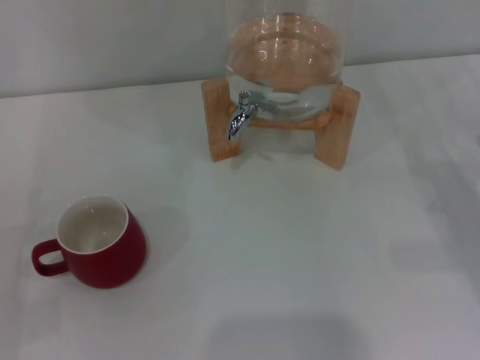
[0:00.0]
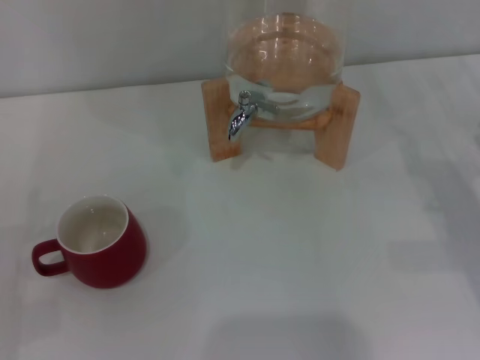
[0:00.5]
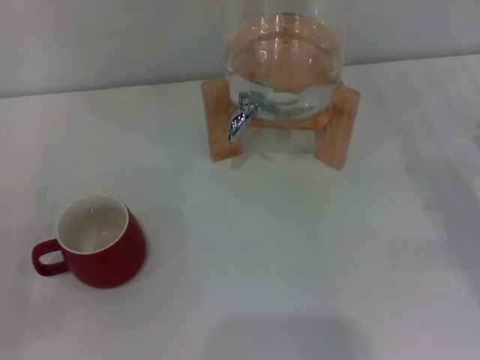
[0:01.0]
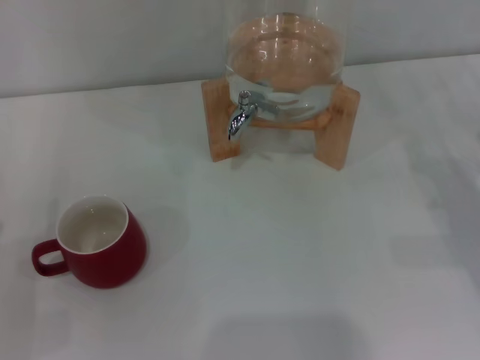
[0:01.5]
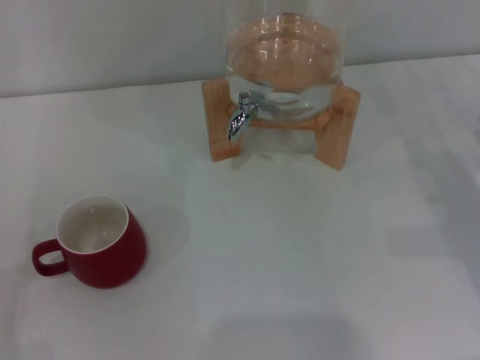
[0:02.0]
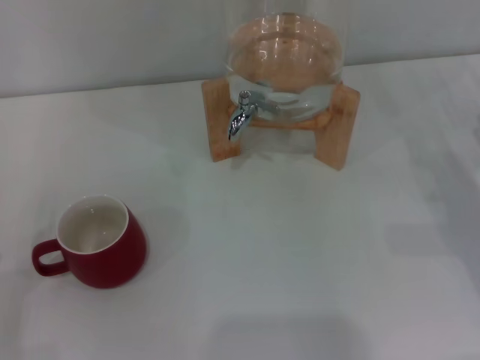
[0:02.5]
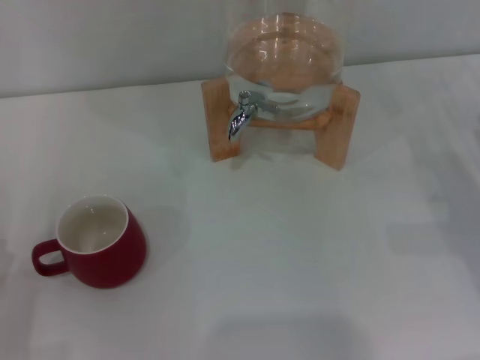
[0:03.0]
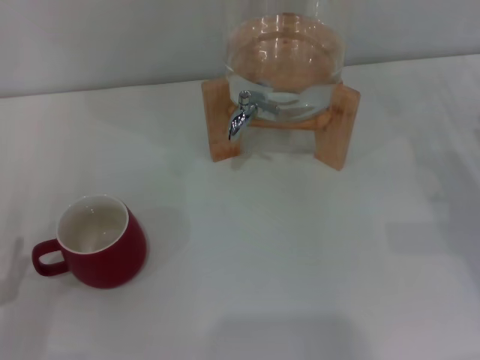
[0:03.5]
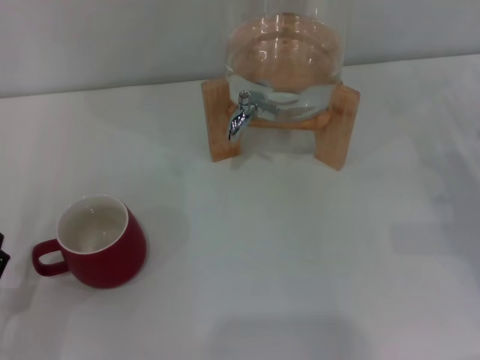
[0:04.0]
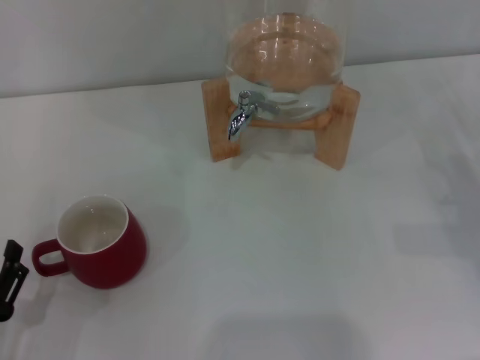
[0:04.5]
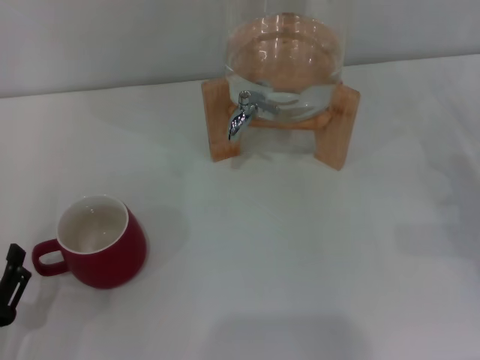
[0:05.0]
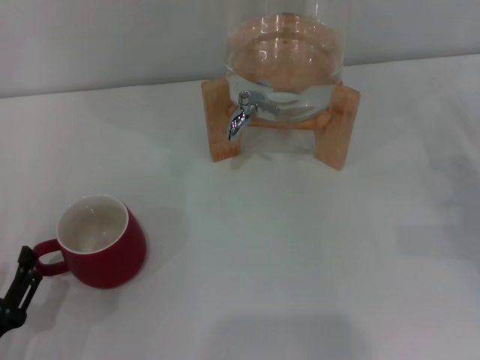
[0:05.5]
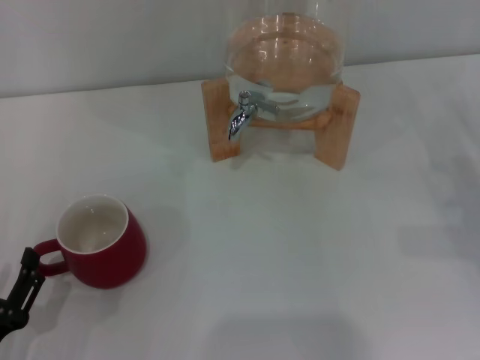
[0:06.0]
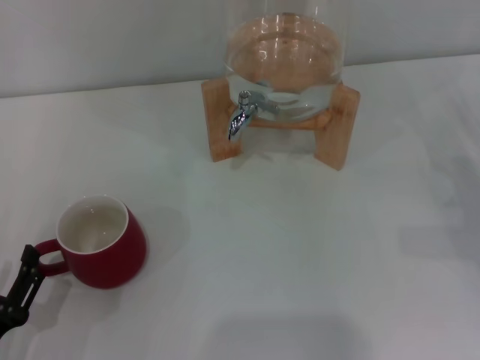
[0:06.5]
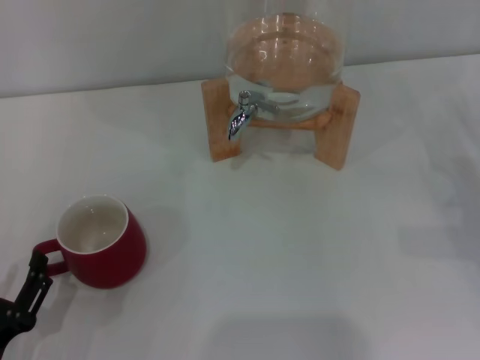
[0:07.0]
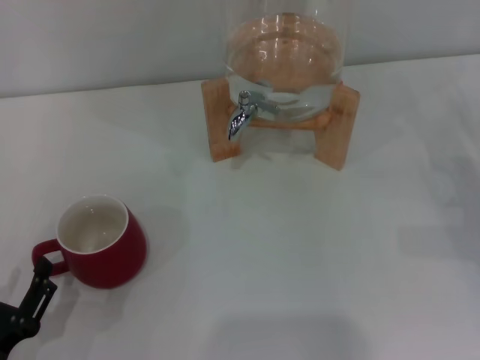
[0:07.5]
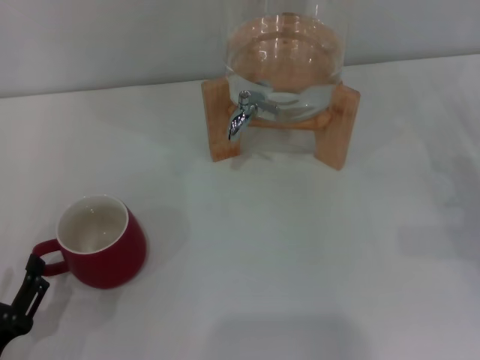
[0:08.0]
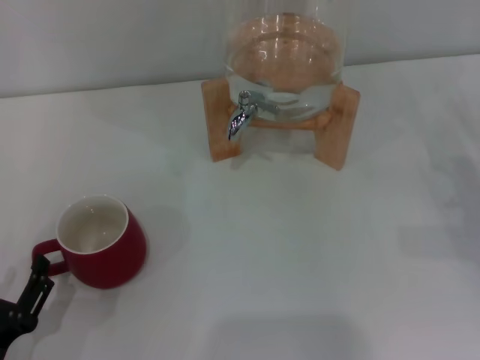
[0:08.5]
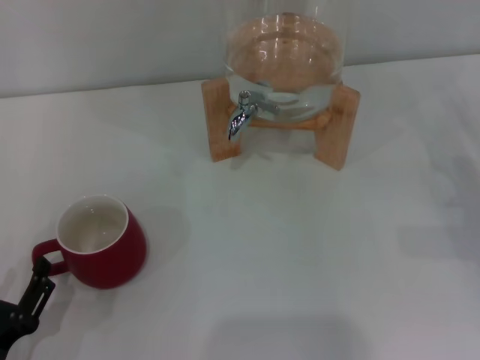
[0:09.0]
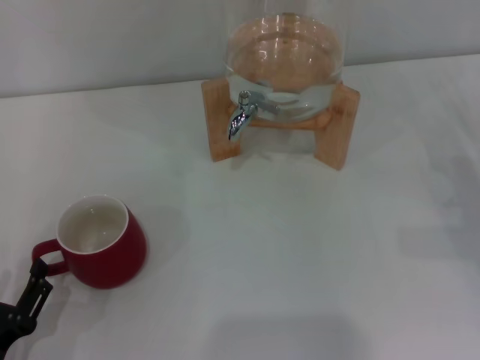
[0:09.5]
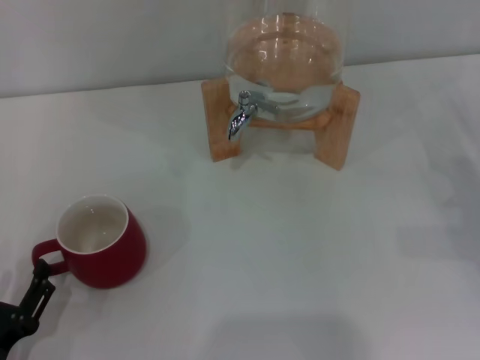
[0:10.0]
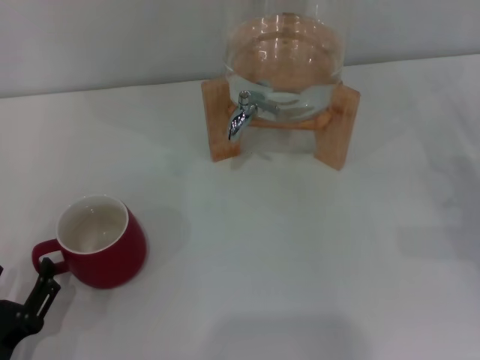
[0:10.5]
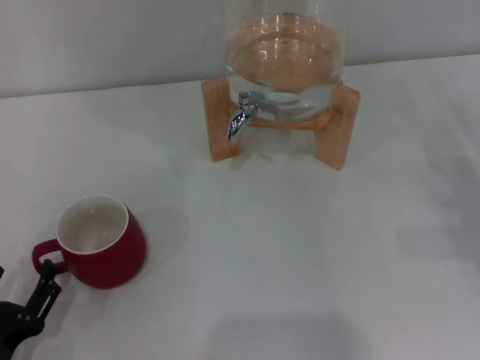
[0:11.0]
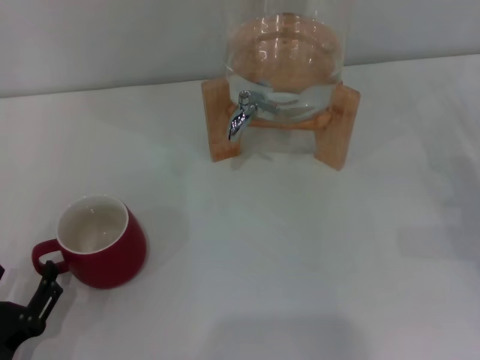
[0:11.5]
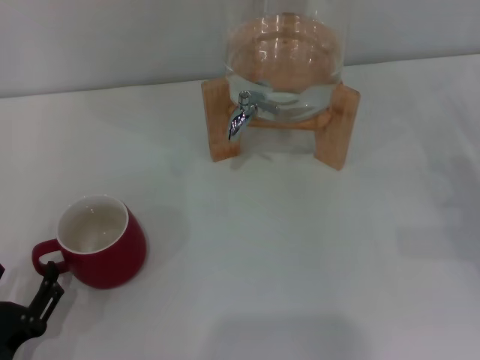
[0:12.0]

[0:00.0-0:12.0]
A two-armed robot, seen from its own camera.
Task of the whole recording: the left gripper pick up the red cup and place it horizontally under the faucet, the right gripper turn on the faucet to fill the cup, and then turn off the faucet.
0:04.0 to 0:06.0: There are only small adjustments of the grippers.
0:06.0 to 0:08.0: The two grippers keep their place.
0:08.0 to 0:10.0: Neither gripper changes place.

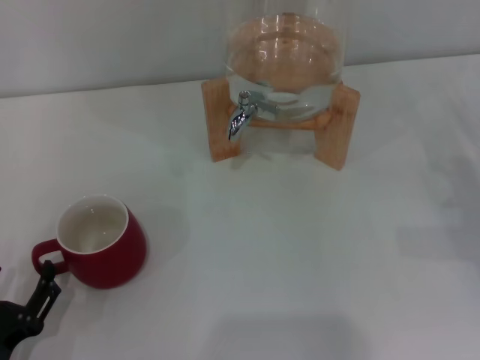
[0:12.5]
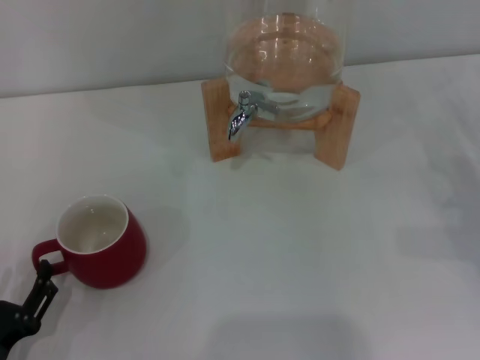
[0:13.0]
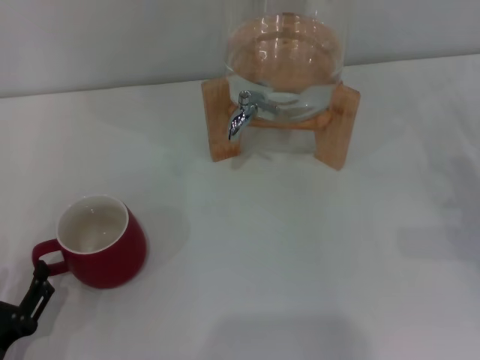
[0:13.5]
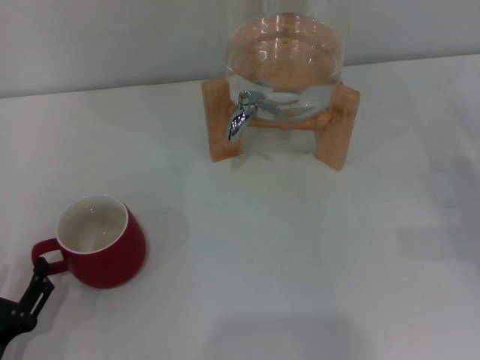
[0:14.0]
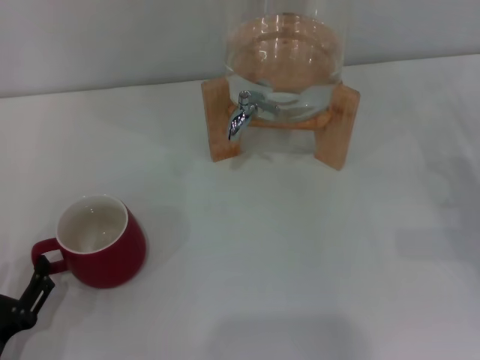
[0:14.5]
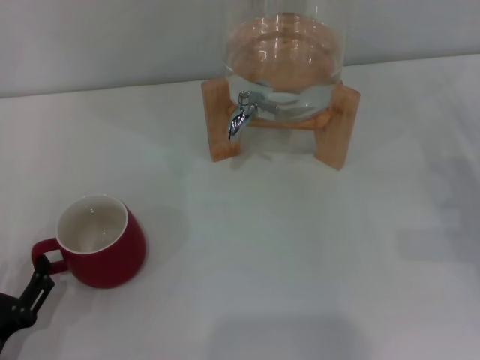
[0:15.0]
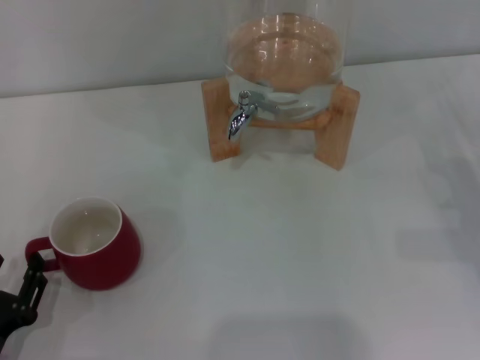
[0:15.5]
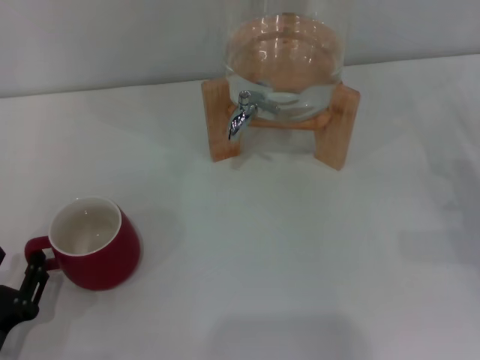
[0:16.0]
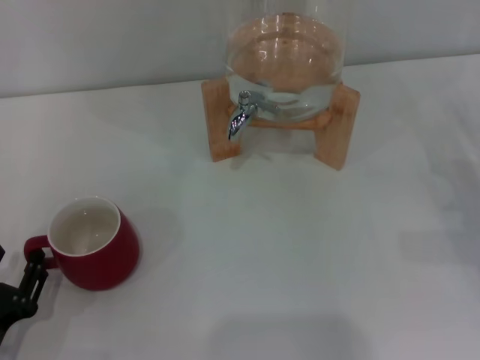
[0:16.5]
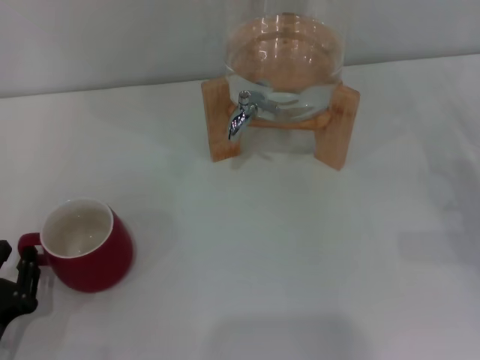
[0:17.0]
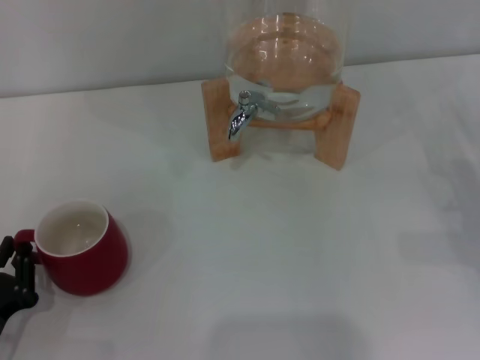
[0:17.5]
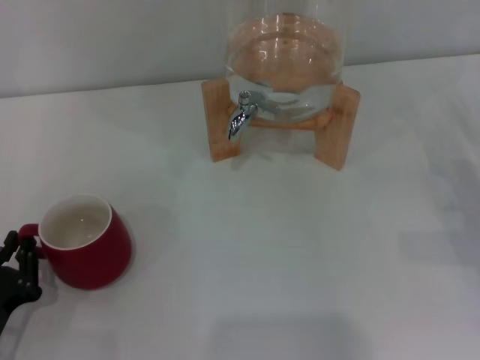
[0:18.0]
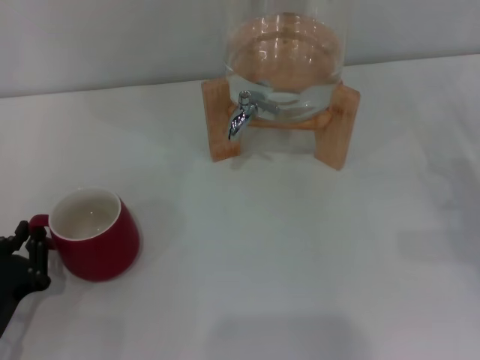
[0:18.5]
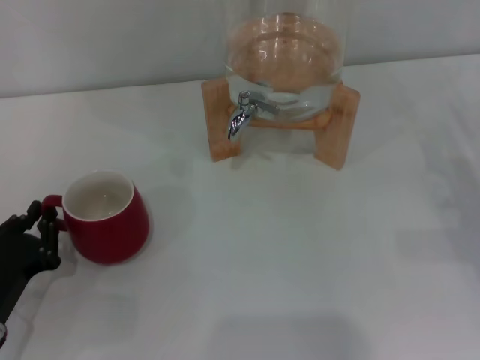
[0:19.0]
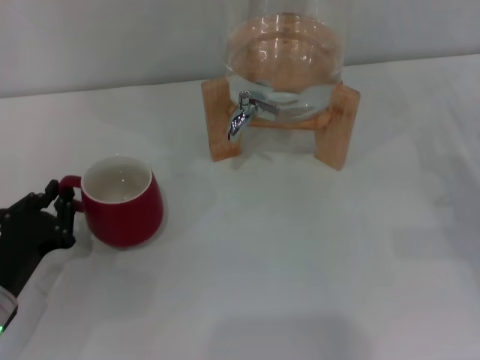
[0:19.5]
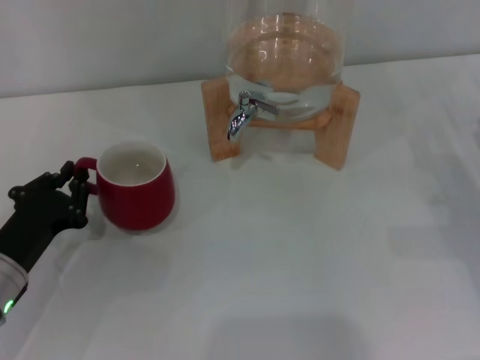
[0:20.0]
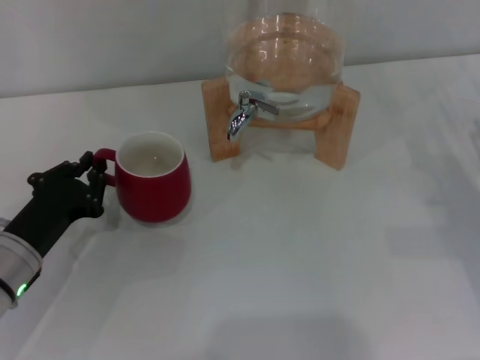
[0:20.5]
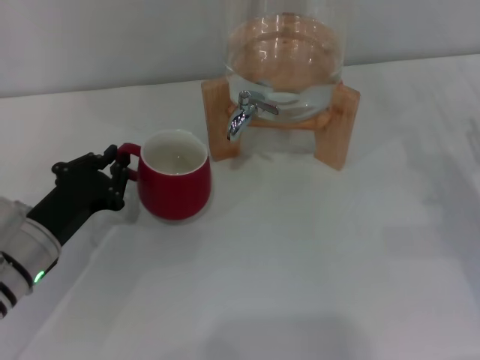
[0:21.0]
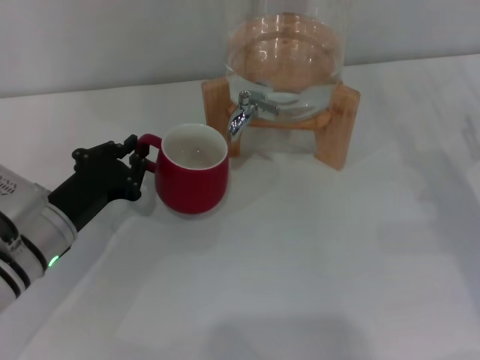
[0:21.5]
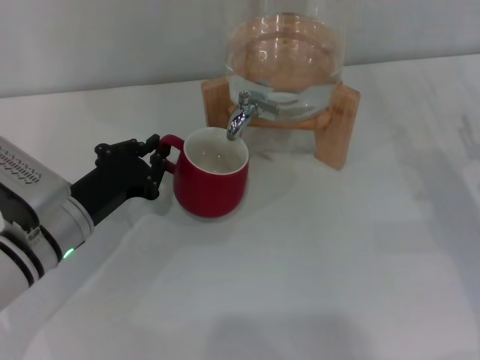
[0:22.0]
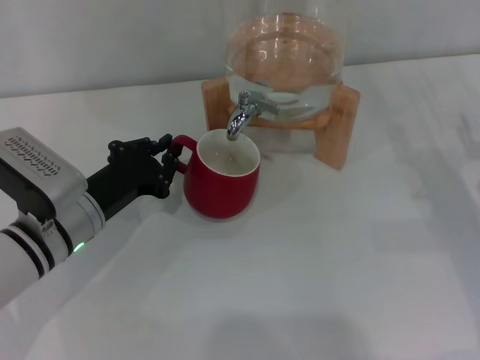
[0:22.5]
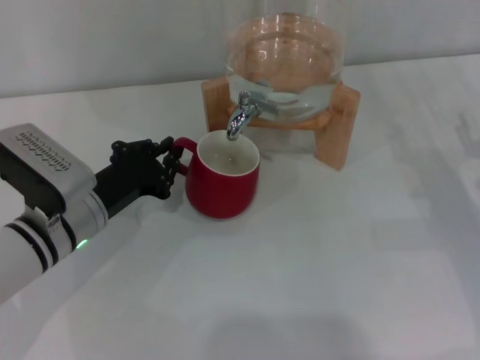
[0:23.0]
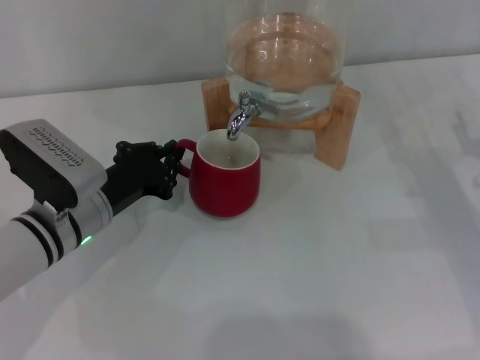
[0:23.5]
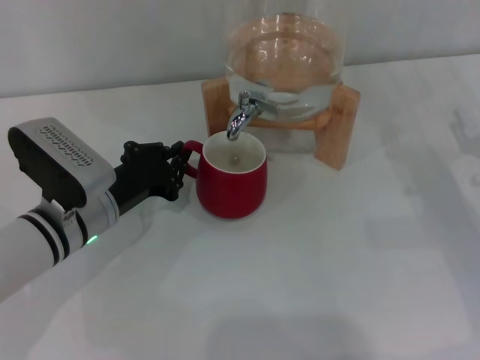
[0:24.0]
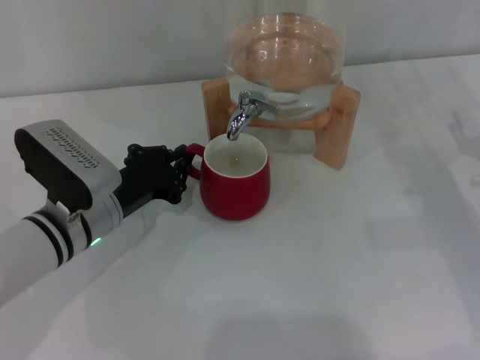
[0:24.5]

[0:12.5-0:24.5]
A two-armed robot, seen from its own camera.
Task of the whole recording: the left gripper pick up the red cup and place it horizontally under the faucet, the right gripper turn on the faucet to fill the cup, and then turn off the faucet.
0:12.5 to 0:14.5: Neither gripper changes place.
0:14.5 to 0:16.5: The left gripper closes.
0:16.5 to 0:18.5: The left gripper closes.
0:18.5 to 0:20.5: The left gripper travels forward by roughly 10 cm.
0:20.5 to 0:22.5: The left gripper travels to the right by approximately 5 cm.
0:22.5 to 0:24.5: The grippers stay close to where they were, moving slightly.

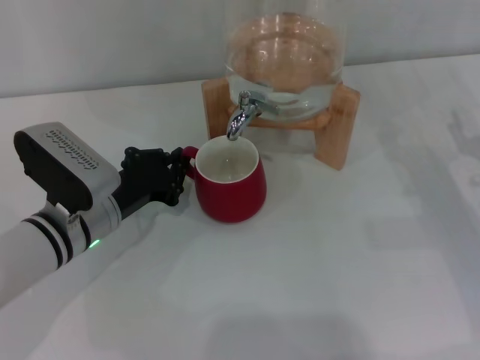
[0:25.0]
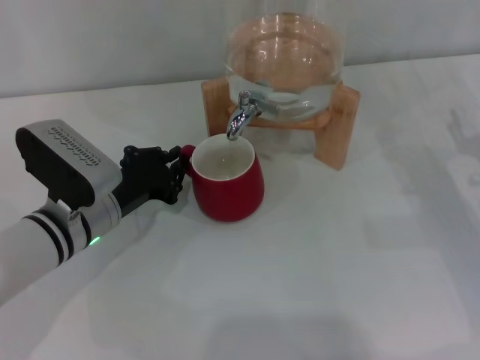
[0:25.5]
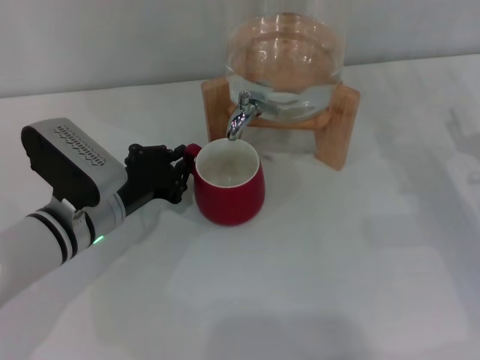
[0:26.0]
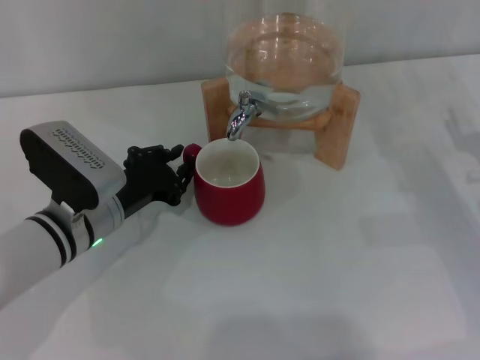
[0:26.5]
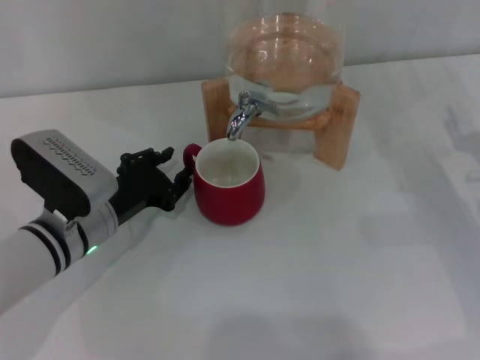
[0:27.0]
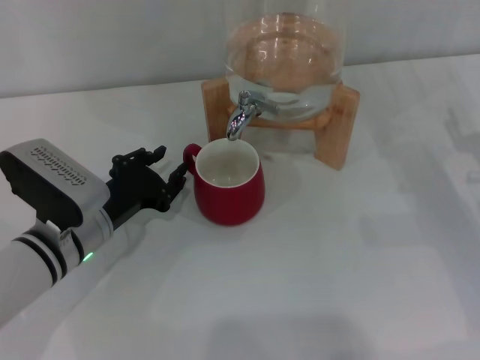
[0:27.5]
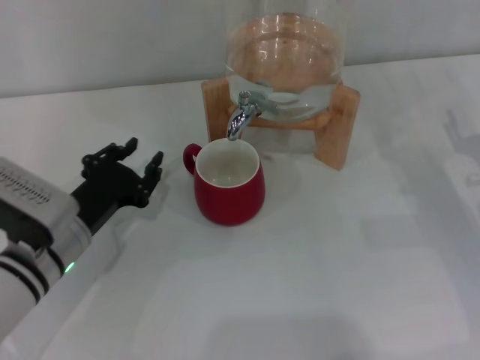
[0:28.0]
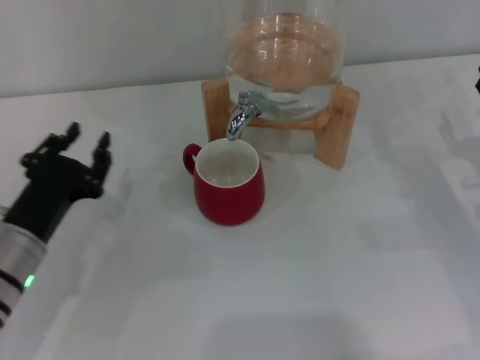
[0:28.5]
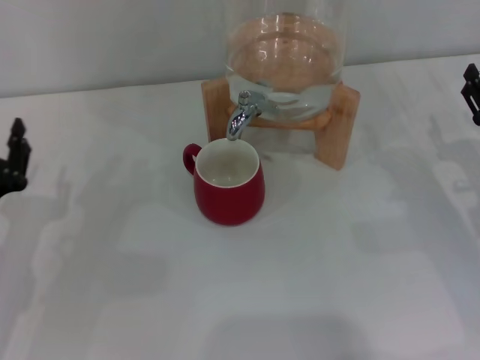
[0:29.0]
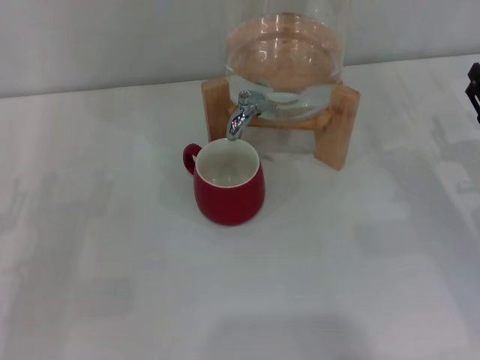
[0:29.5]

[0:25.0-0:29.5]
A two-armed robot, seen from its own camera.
Task of the whole recording: the left gripper pick up the red cup and place it horizontally under the faucet, the right gripper turn on the faucet to fill the cup, and then turn off the faucet.
Step, 0:25.0 to 0:27.5: Move the cup beneath the water dispenser nozzle with the left gripper.
0:25.0 to 0:27.0: Neither gripper changes place.
0:27.0 to 0:29.5: The left gripper shifts roughly 15 cm to the left and backward, and opens up.
